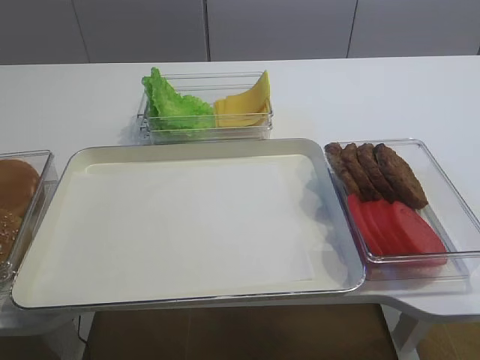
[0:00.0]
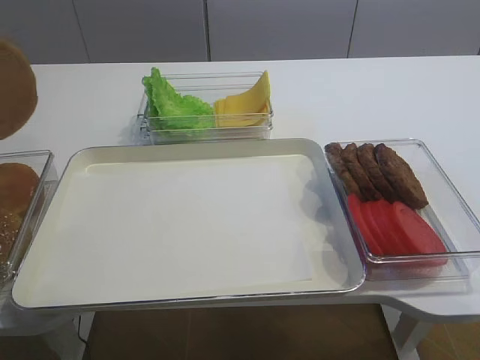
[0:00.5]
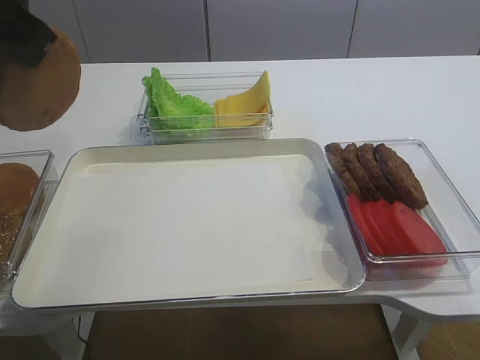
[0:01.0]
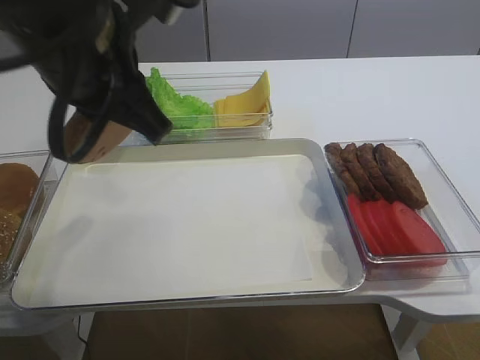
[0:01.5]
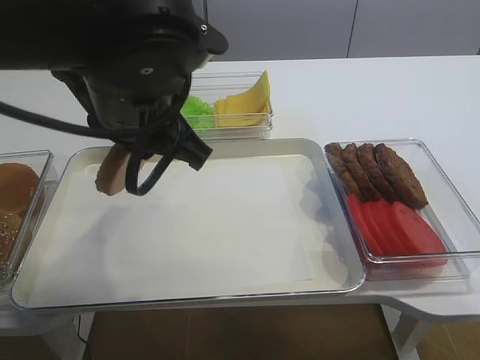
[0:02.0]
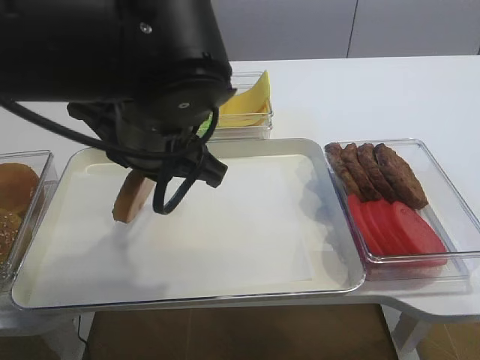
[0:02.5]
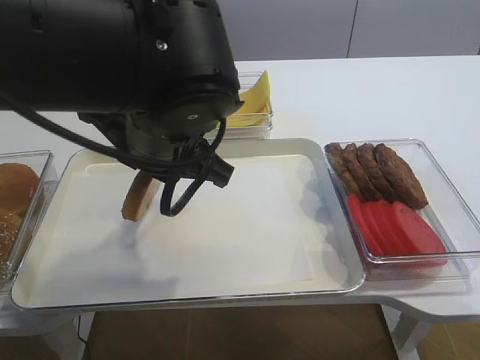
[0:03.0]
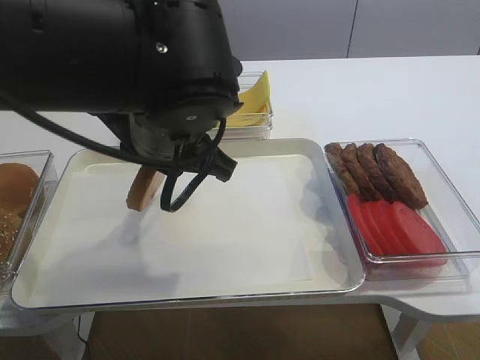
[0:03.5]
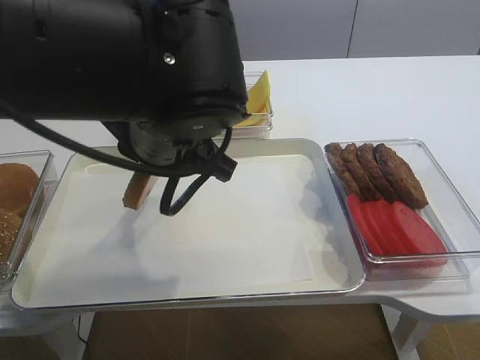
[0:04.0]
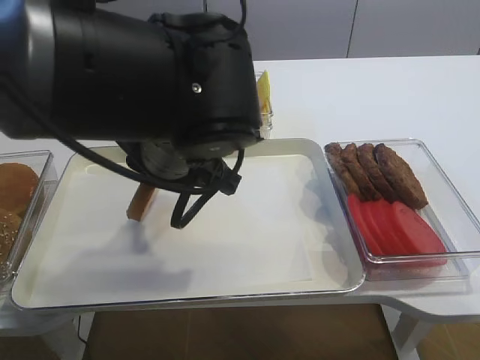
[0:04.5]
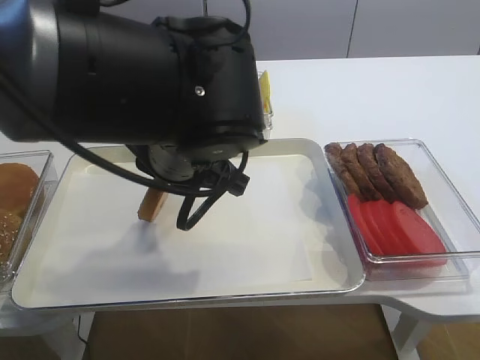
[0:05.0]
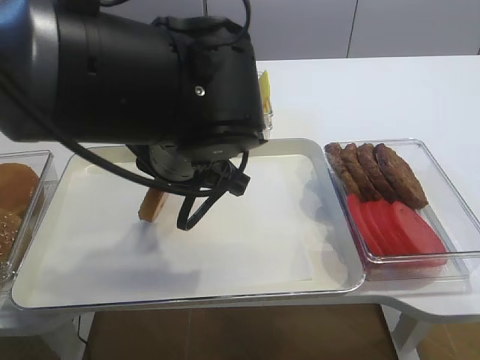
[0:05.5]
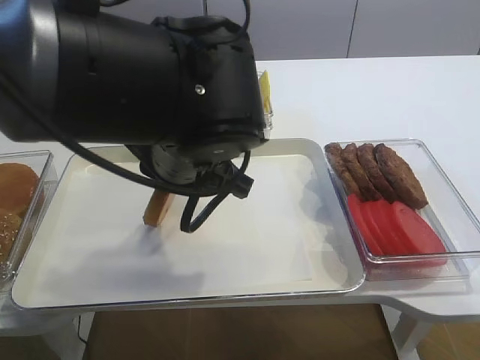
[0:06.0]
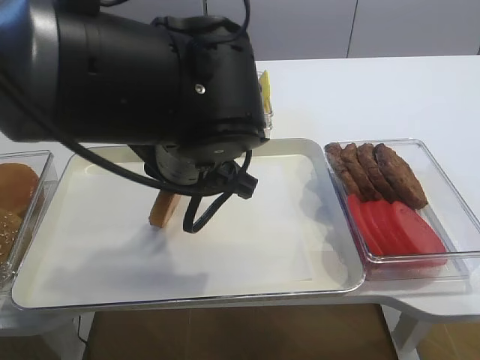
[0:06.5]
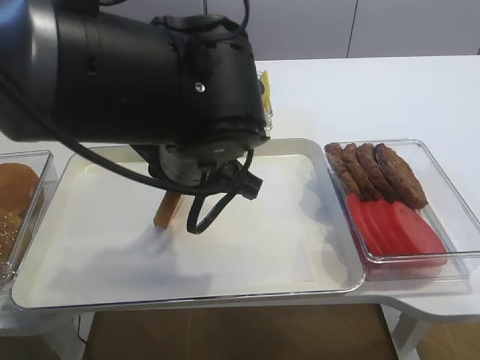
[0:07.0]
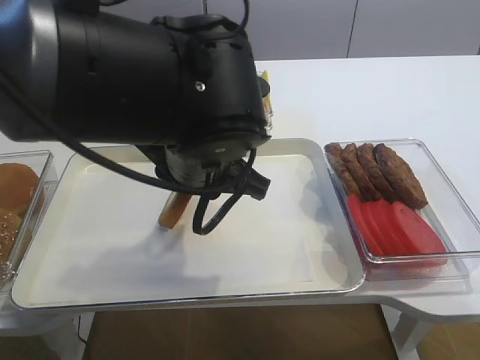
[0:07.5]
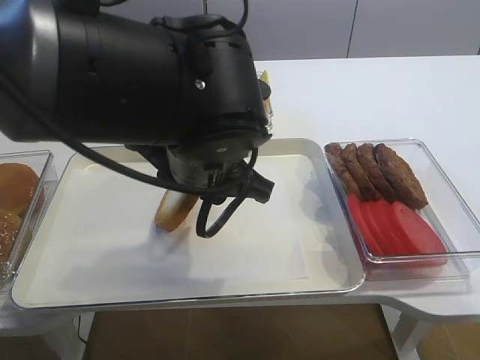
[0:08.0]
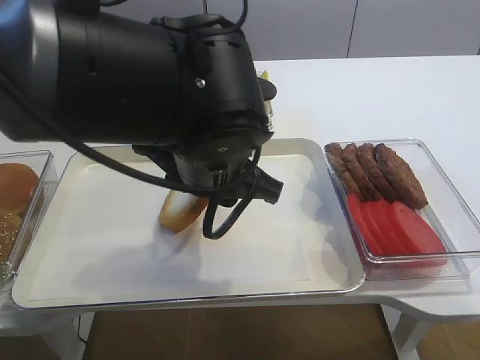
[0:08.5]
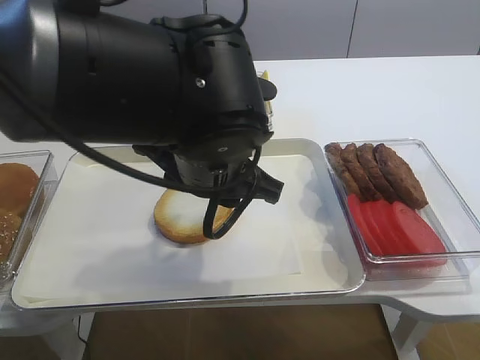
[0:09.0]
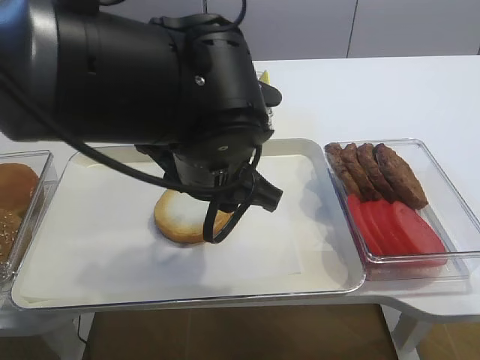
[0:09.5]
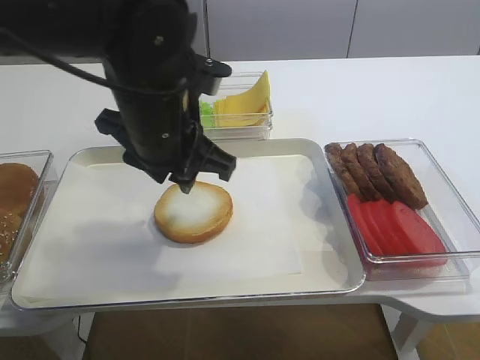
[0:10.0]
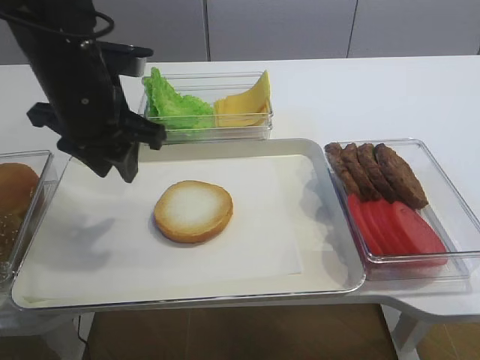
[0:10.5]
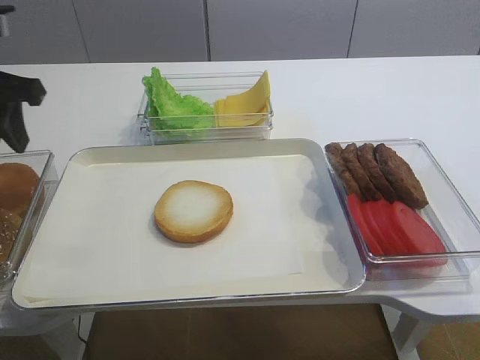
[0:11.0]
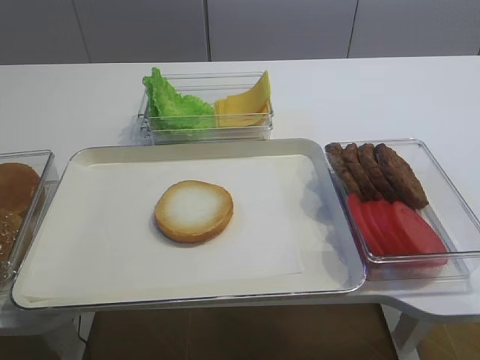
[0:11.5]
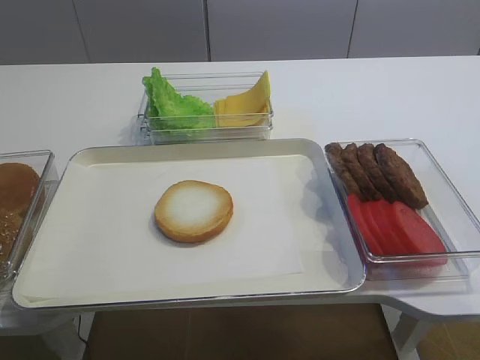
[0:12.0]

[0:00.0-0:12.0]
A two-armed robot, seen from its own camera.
Step, 0:00.5 to 0:10.0: Place the bread slice on the tray with the left gripper.
0:00.0 to 0:02.0: The left gripper heads to the right, covering some 30 cm.
0:02.0 to 0:04.0: There are only small adjustments of the grippers.
0:04.0 to 0:08.0: There are only small adjustments of the grippers.
0:08.0 to 0:10.0: The left gripper moves roughly 5 cm.
0:10.0 to 0:12.0: The left gripper moves to the left and backward, roughly 30 cm.

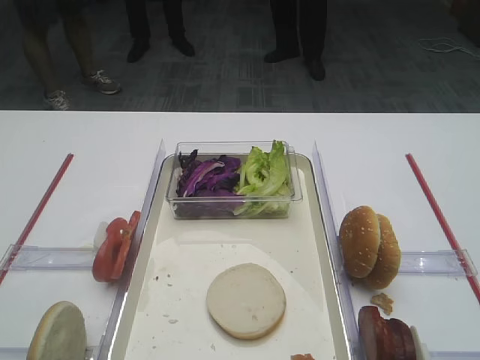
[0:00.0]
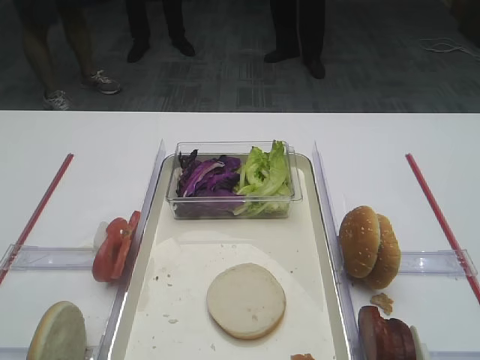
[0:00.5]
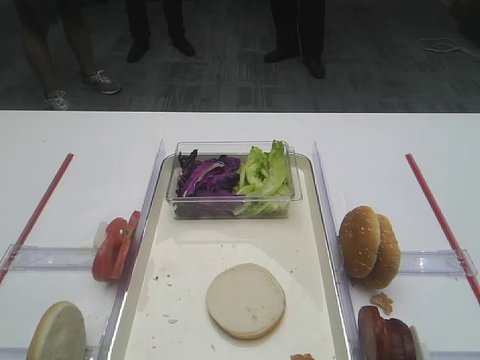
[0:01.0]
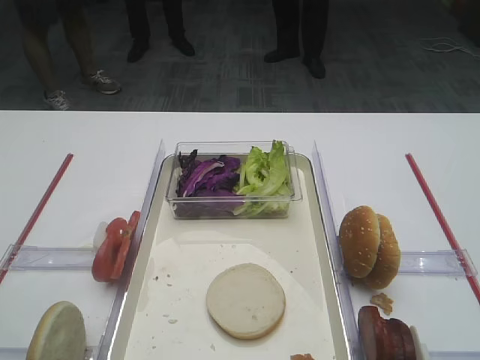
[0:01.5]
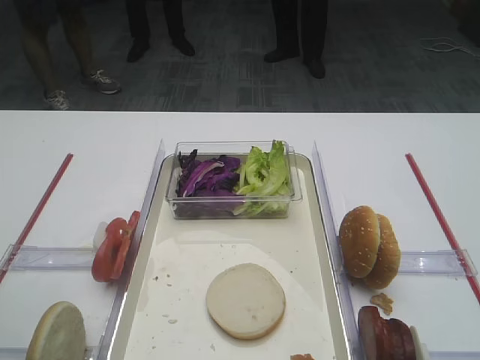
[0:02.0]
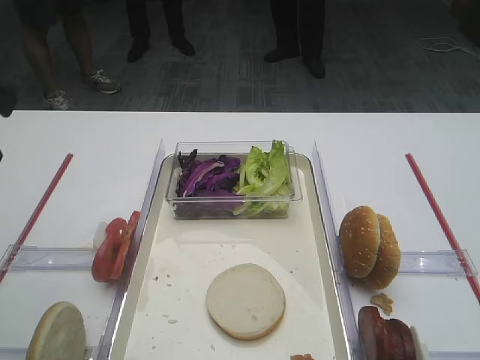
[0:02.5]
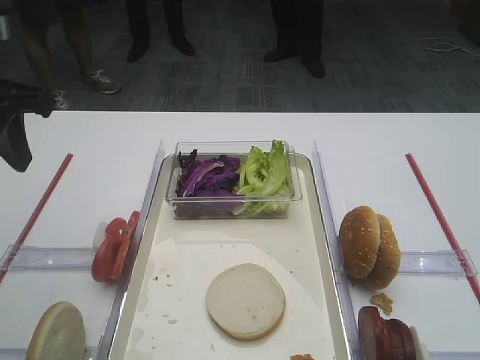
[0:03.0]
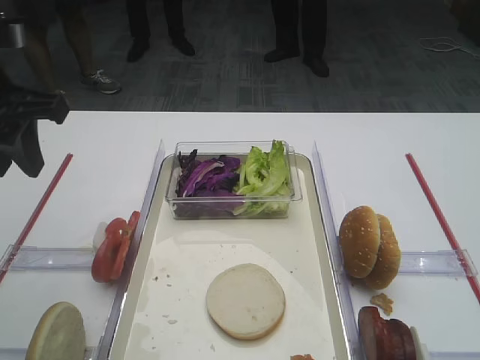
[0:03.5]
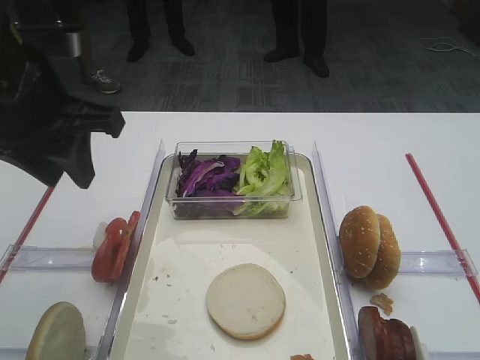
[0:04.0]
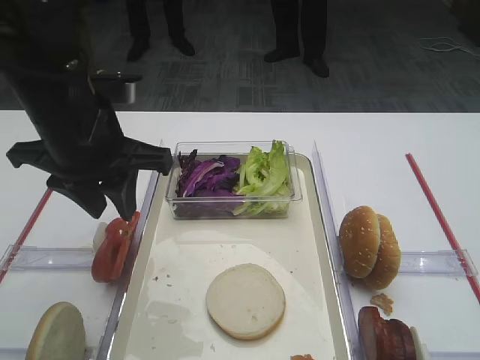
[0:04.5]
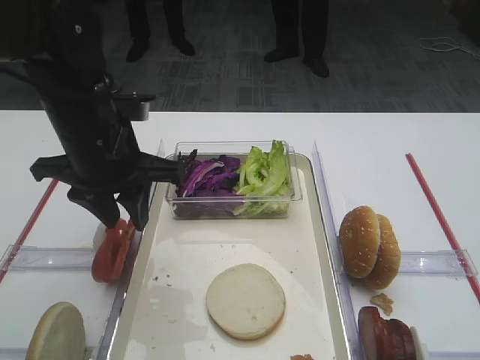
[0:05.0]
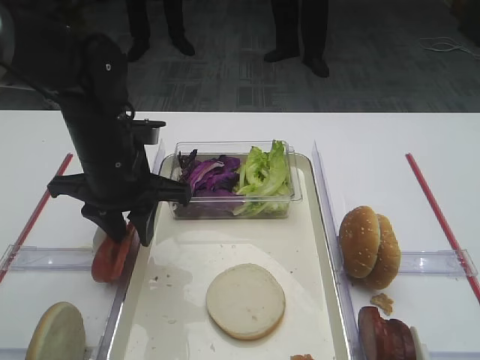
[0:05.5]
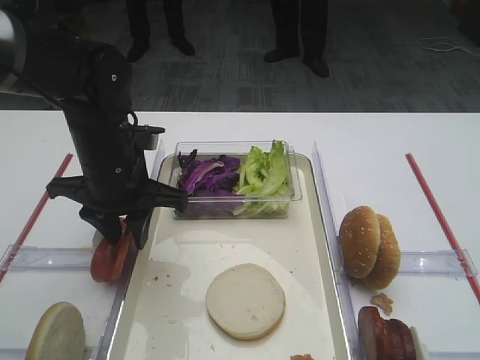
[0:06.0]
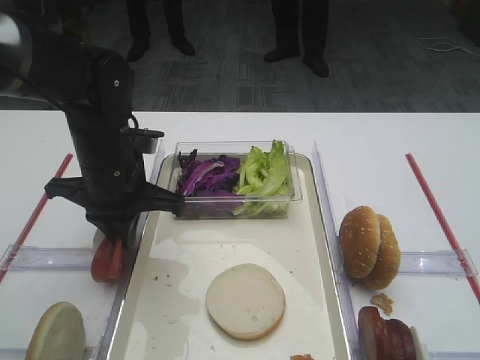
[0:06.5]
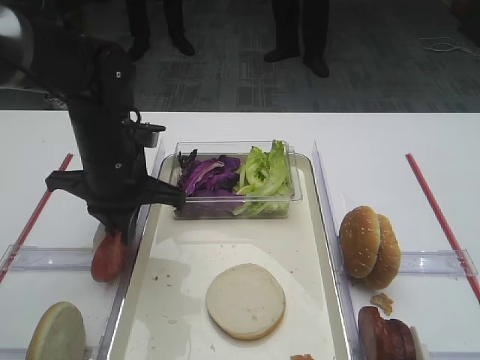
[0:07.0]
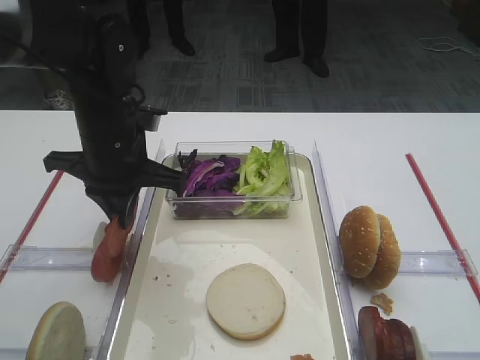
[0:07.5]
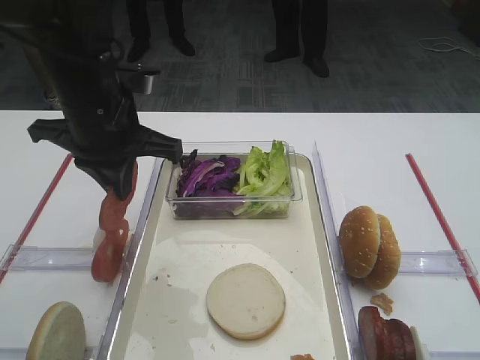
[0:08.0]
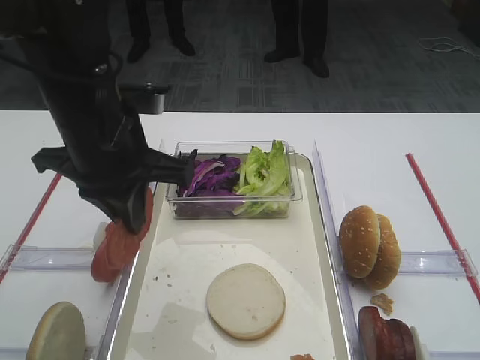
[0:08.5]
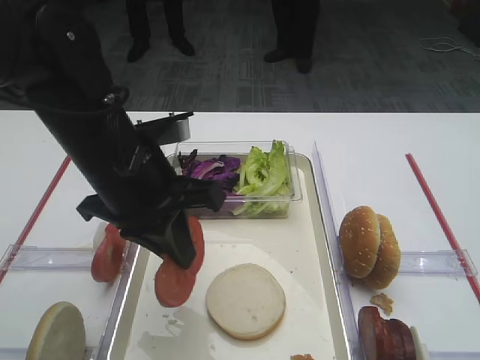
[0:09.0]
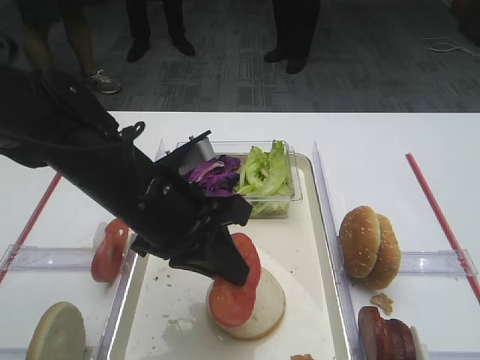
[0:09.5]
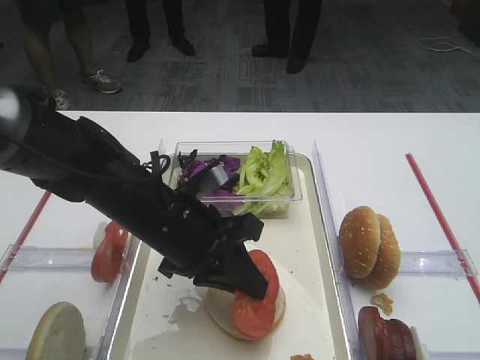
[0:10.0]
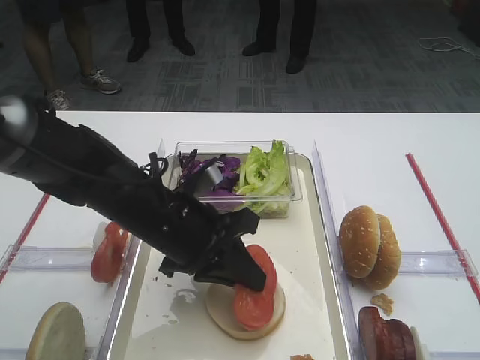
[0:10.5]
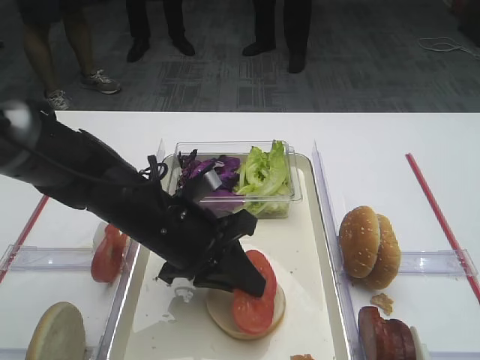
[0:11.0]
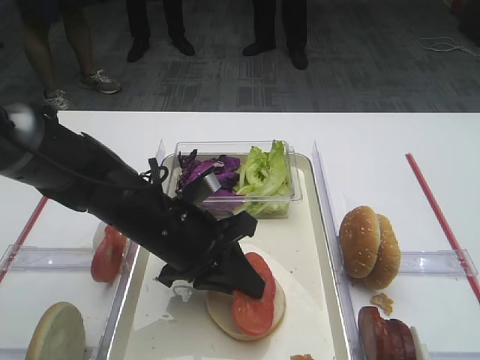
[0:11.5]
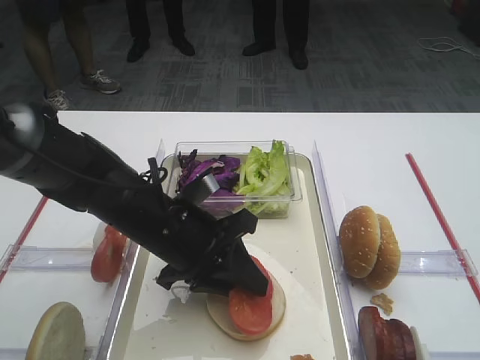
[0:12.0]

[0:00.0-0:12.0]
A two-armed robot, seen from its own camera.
Step, 0:00.0 to 0:07.0: Pick up the tomato slice with the left gripper.
0:02.0 to 0:04.0: The left gripper heads forward and to the right, covering some 15 cm.
0:04.0 to 0:06.0: The left gripper shifts approximately 15 cm downward and forward.
0:06.0 to 0:08.0: The left gripper goes approximately 10 cm upward, and closes its fingers.
0:08.0 to 0:10.0: The left gripper is displaced downward, to the right and backward by approximately 15 cm.
0:10.0 to 0:12.0: The left gripper opens.

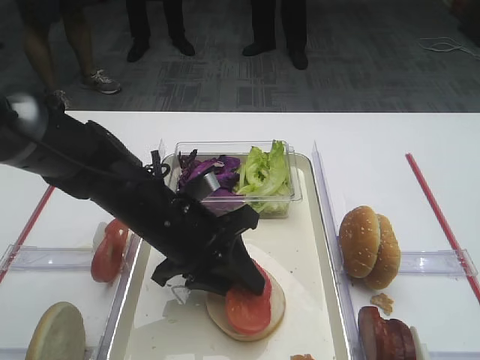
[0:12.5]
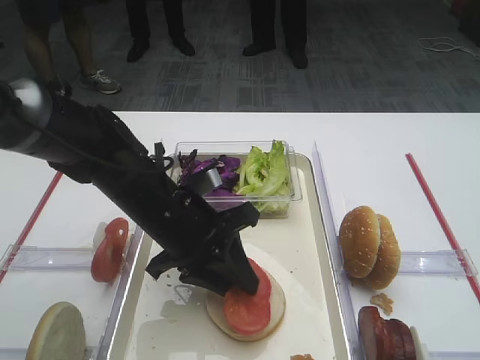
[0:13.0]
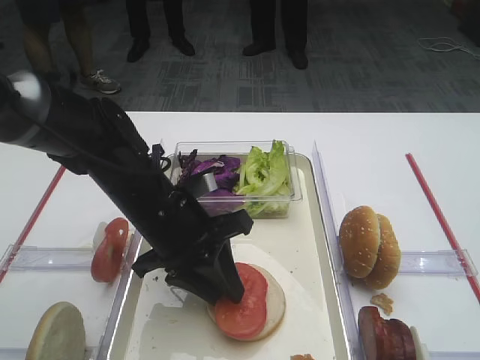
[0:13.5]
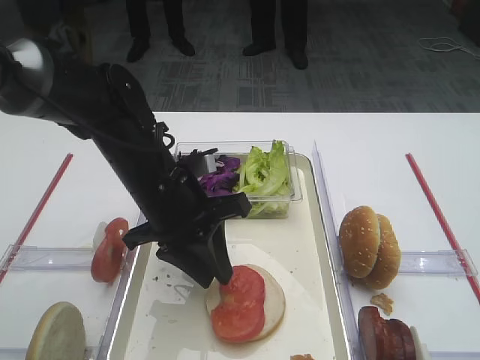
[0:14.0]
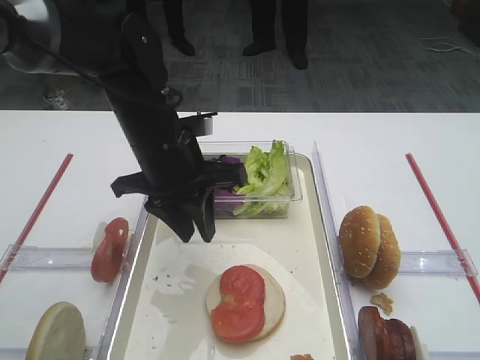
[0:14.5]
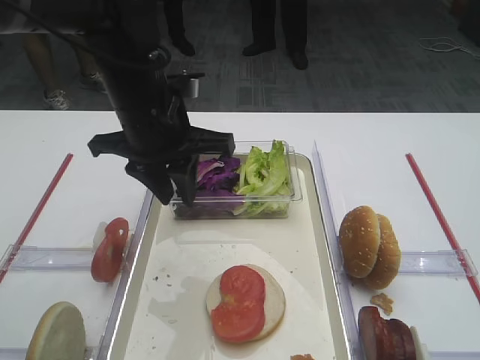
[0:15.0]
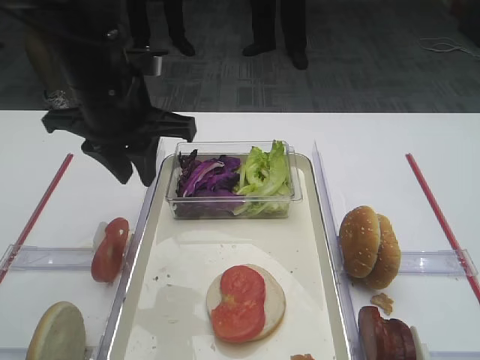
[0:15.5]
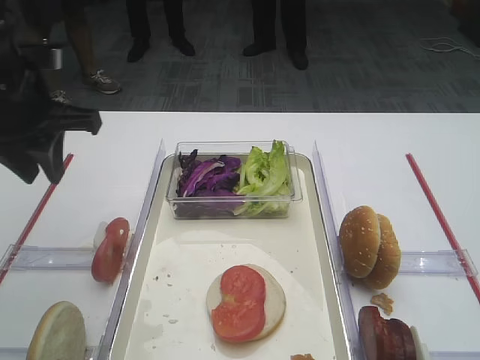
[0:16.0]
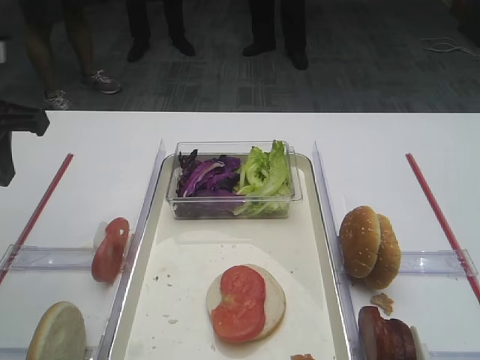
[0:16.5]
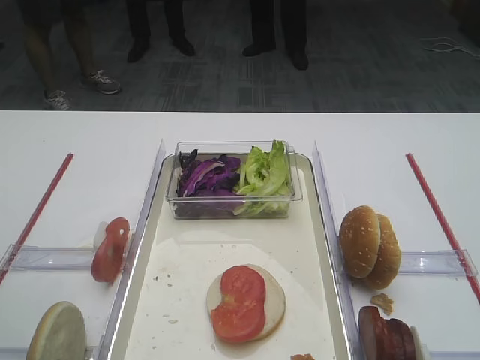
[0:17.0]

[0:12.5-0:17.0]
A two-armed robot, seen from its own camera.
0:12.5 to 0:14.5: The left gripper shifts approximately 10 cm upward and forward.
0:14.5 to 0:17.0: The left gripper goes approximately 25 cm to the left, backward and upward.
